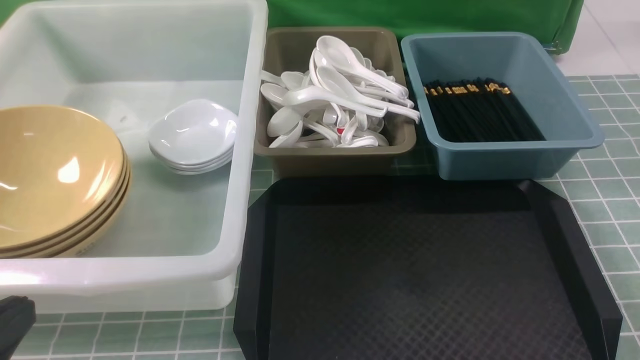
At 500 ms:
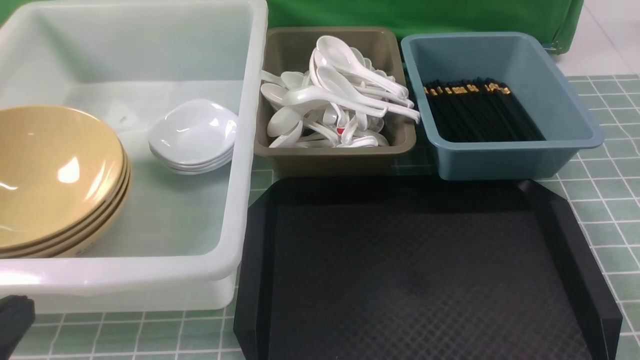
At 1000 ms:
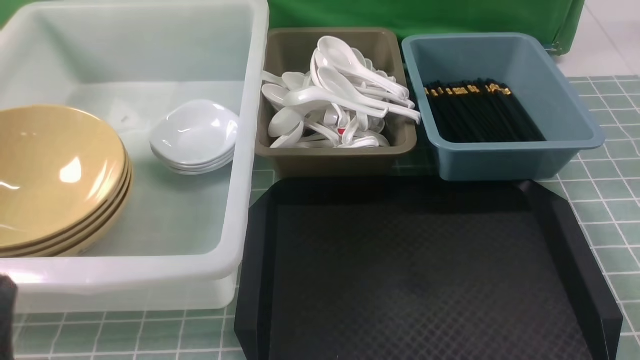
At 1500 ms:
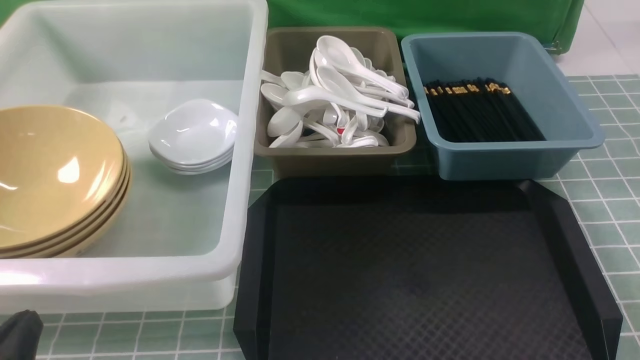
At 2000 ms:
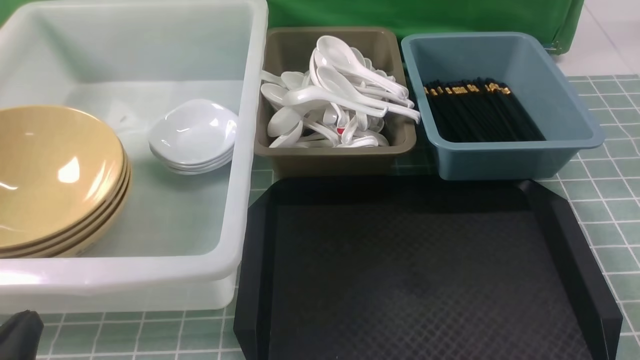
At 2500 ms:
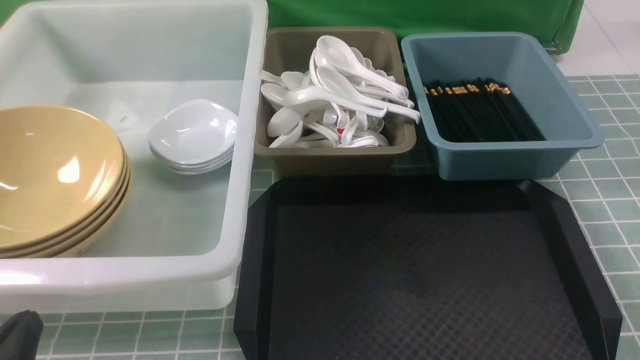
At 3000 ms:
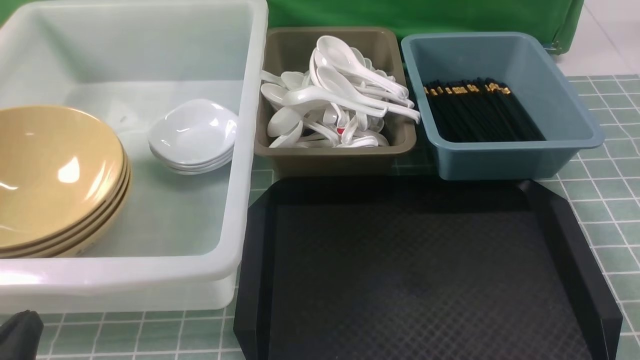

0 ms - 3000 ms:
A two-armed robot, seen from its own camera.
Task of the whole recording: on blue table put chopsticks spoon bowls plates into blue grey white boxes.
1500 ms - 3000 ms: Both grippers stay about where they are.
